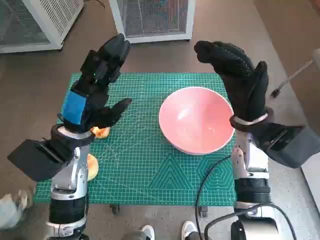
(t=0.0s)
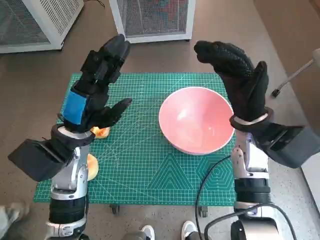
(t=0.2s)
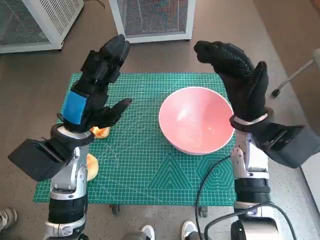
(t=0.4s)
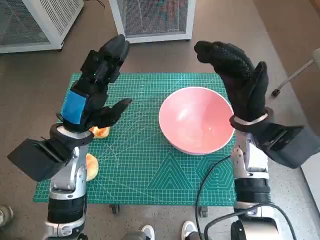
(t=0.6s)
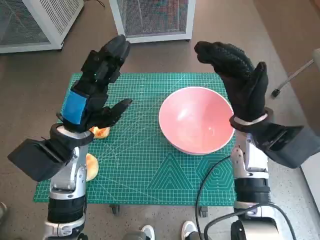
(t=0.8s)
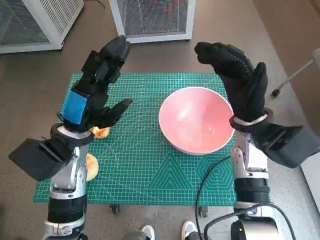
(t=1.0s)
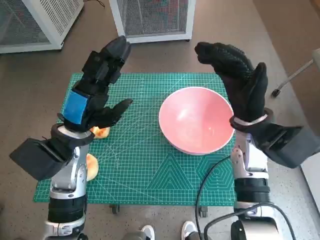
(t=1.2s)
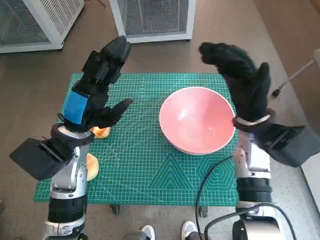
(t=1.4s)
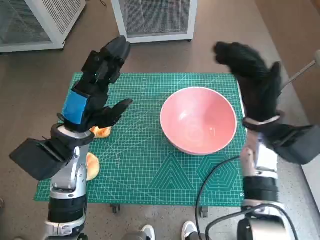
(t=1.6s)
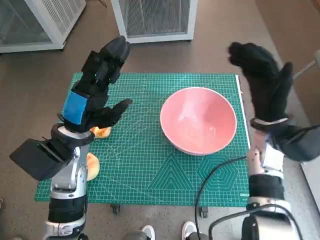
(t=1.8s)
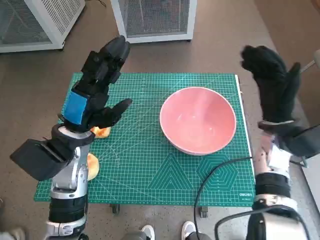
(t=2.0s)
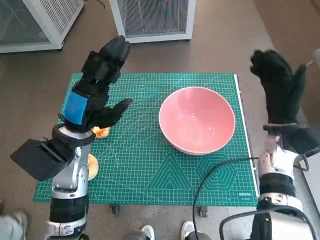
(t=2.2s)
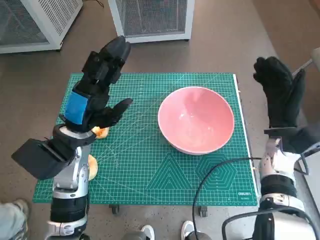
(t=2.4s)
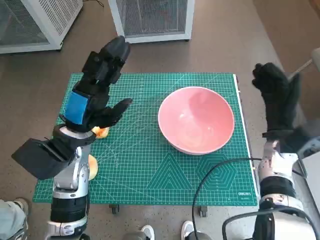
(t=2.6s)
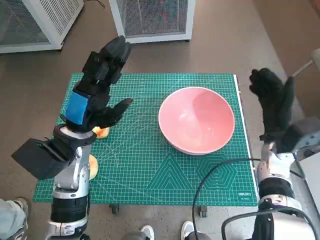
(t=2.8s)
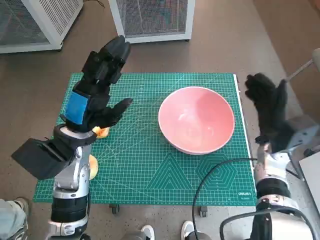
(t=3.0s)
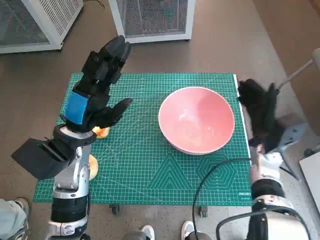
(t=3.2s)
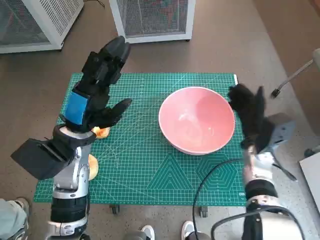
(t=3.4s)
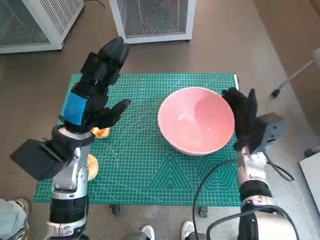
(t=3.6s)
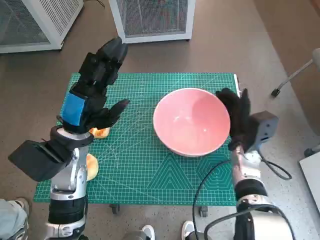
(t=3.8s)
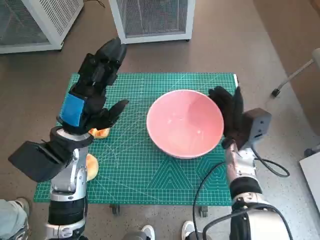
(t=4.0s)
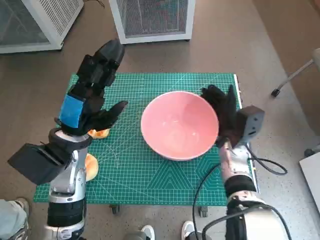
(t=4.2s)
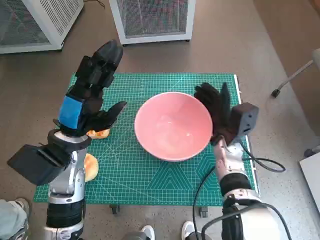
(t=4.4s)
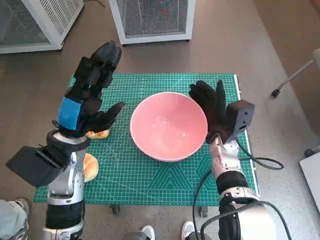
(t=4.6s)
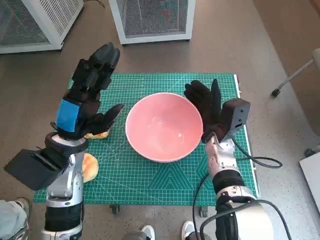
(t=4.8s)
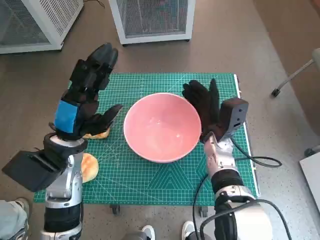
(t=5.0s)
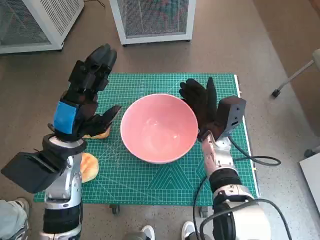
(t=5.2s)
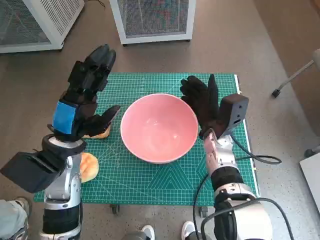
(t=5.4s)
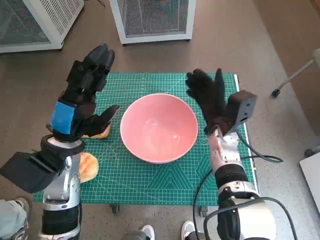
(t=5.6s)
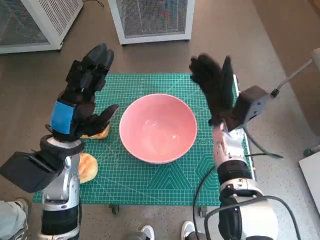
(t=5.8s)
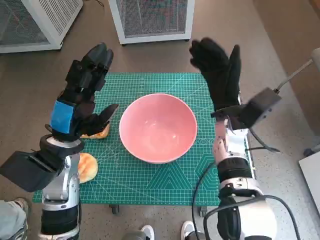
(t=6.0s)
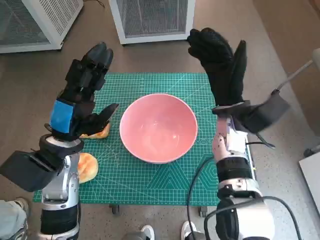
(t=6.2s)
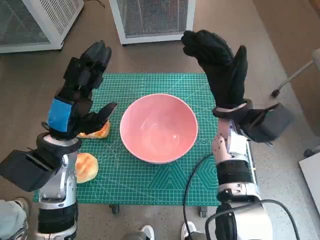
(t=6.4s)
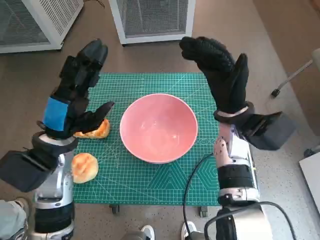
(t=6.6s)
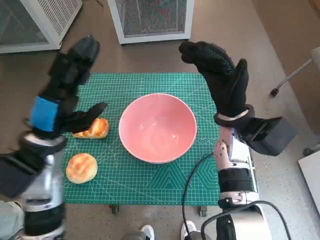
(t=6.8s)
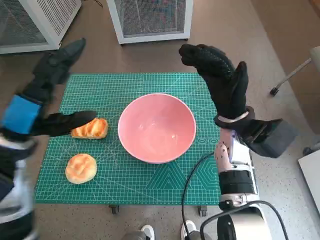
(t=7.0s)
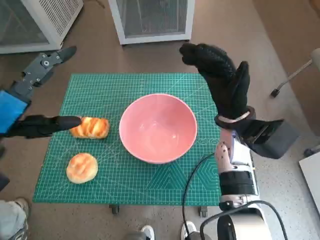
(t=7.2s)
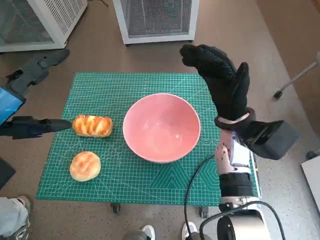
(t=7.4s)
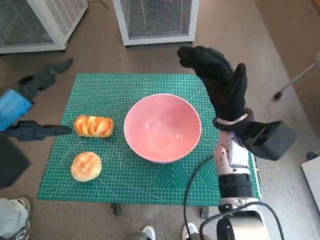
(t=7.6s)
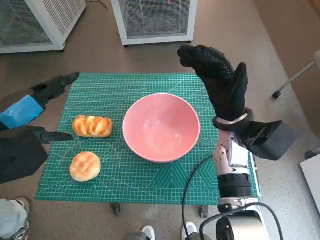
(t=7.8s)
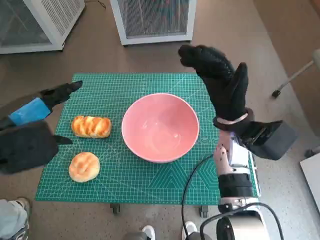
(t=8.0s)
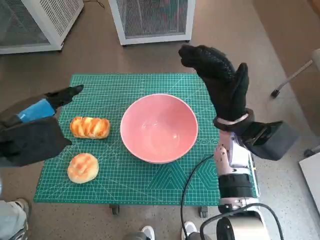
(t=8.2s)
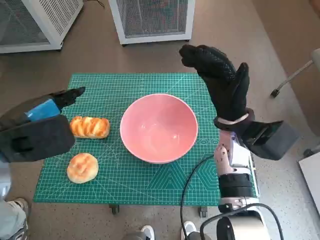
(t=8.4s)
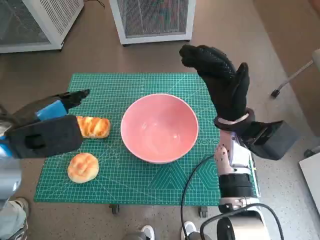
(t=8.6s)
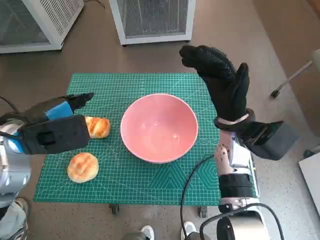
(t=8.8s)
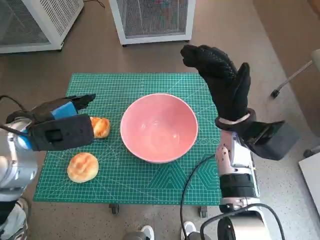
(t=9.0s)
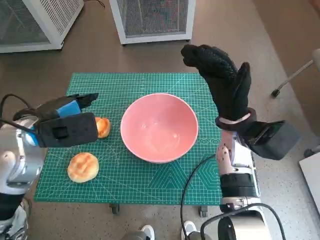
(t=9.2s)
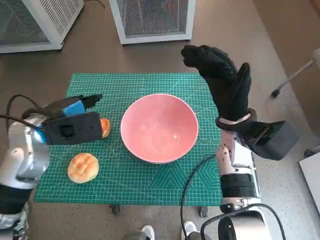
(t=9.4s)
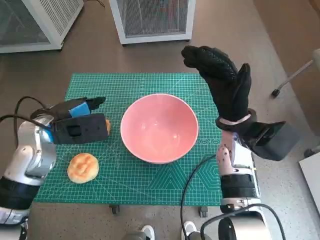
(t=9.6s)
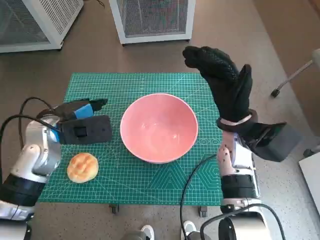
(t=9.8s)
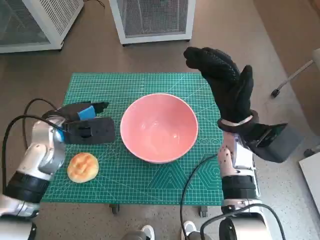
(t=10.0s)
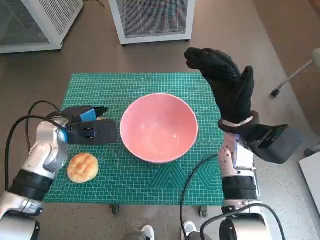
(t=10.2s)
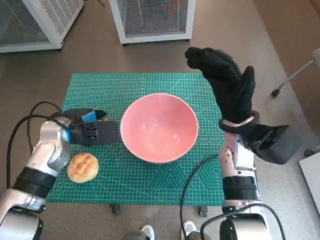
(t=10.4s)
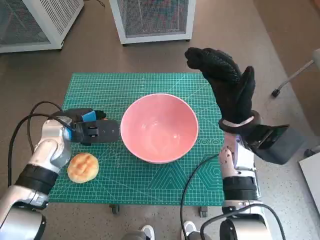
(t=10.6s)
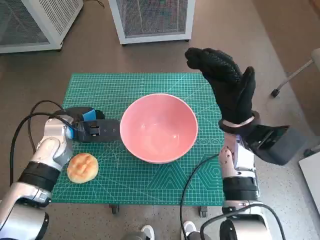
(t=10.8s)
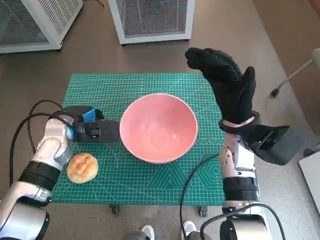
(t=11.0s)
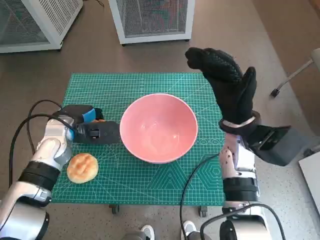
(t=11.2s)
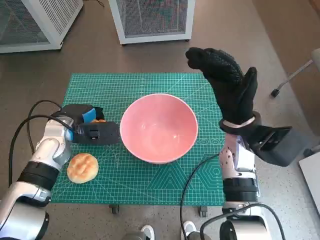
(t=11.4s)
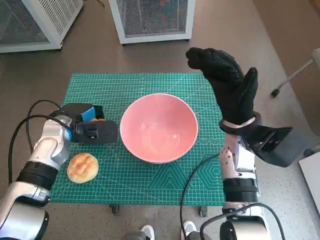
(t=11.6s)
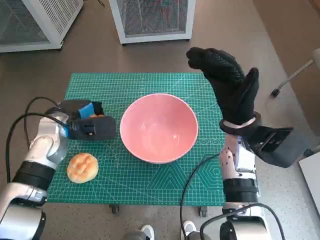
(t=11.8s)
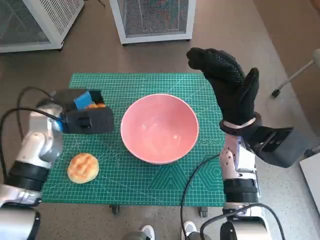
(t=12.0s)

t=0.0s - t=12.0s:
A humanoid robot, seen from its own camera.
Task of the whole recording: Push the bowl into the center of the table and put the bread into the bowl.
Step, t=0.0s - t=5.4s: Move the pink bowl to the center of table with right hand.
Step, t=5.6s - t=10.8s: Grasp the long bread with left hand.
t=1.6s - t=3.0s: The right hand travels downward and to the right by roughly 10 cm.
t=3.0s - t=4.4s: The right hand goes some 10 cm to the left.
t=4.4s - t=6.0s: The right hand heads upward, covering approximately 5 cm.
t=6.0s - t=7.6s: The left hand moves upward, to the left and backward, some 15 cm.
t=7.6s - t=9.0s: The left hand goes approximately 10 cm forward and downward.
t=9.0s - t=10.4s: The left hand goes approximately 10 cm downward and forward.
t=10.4s - t=12.0s: The hands move only a little.

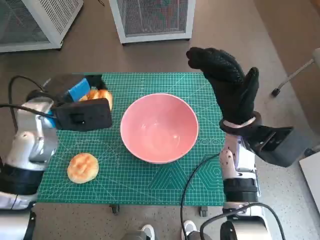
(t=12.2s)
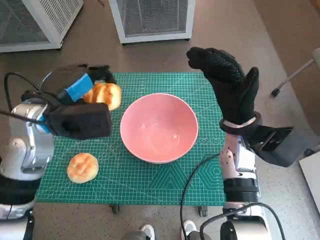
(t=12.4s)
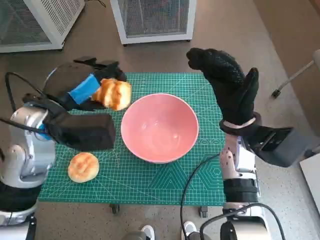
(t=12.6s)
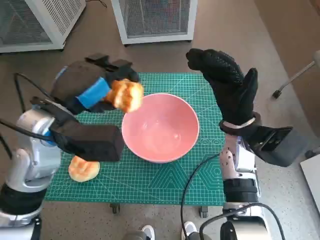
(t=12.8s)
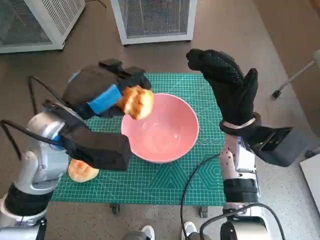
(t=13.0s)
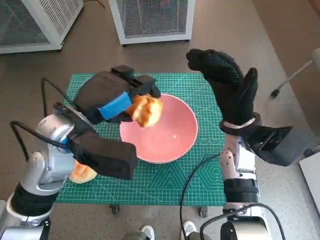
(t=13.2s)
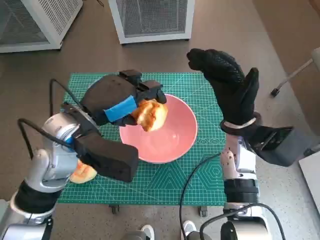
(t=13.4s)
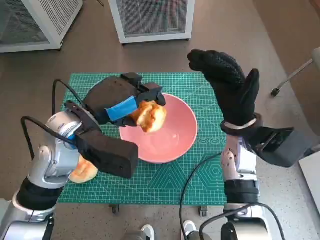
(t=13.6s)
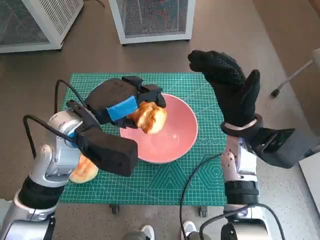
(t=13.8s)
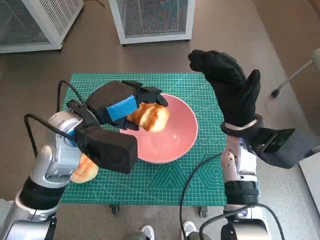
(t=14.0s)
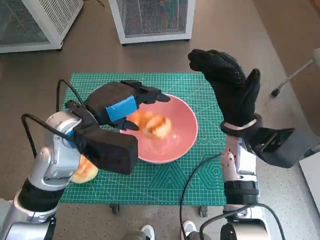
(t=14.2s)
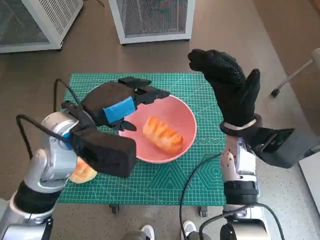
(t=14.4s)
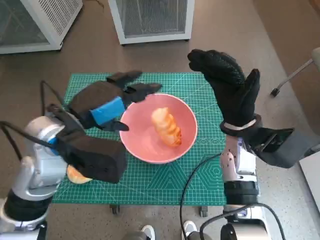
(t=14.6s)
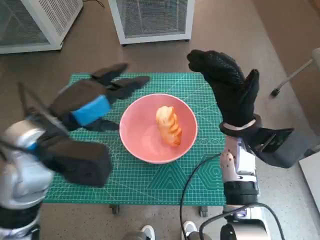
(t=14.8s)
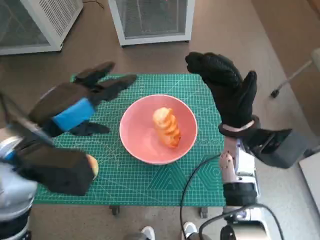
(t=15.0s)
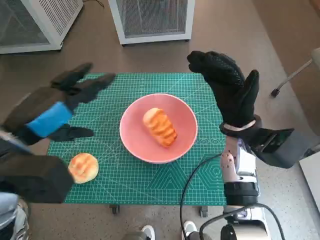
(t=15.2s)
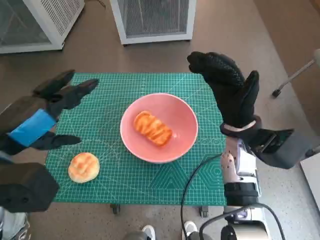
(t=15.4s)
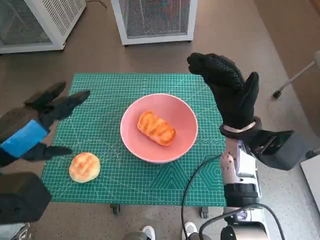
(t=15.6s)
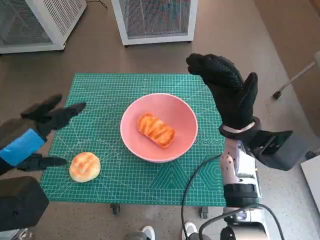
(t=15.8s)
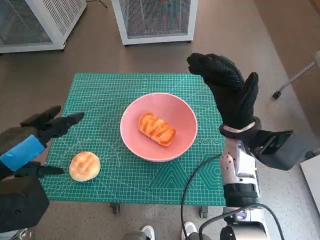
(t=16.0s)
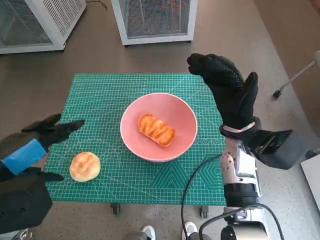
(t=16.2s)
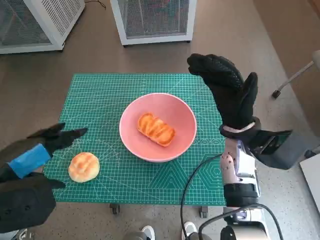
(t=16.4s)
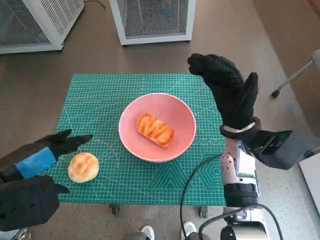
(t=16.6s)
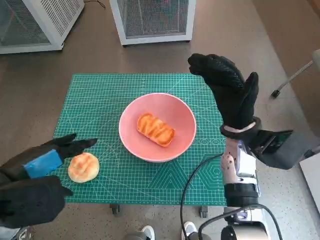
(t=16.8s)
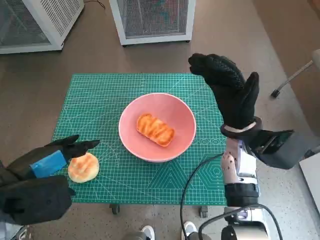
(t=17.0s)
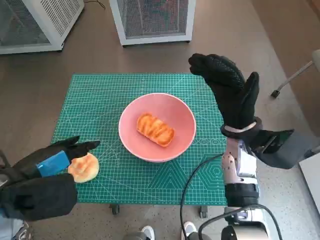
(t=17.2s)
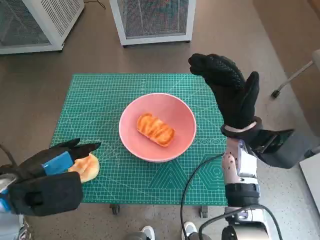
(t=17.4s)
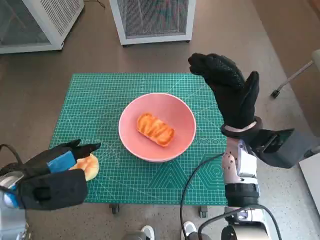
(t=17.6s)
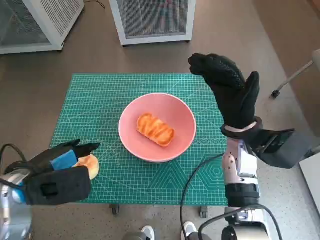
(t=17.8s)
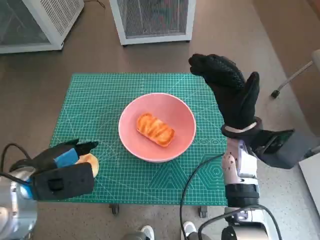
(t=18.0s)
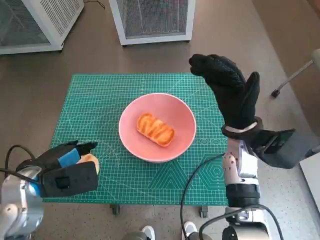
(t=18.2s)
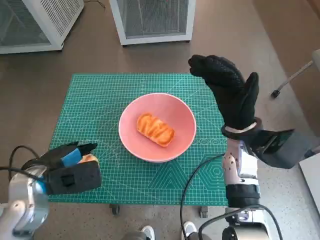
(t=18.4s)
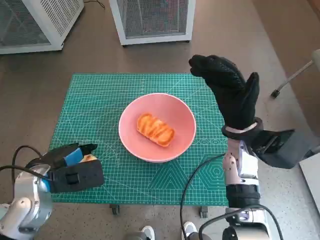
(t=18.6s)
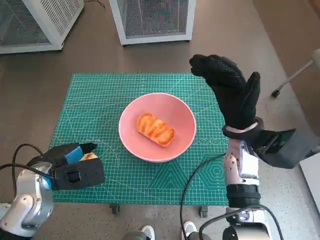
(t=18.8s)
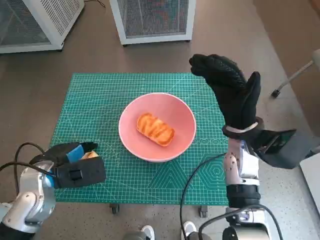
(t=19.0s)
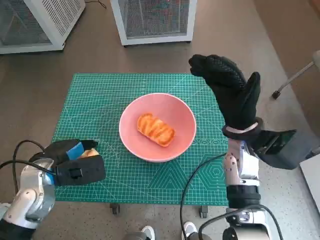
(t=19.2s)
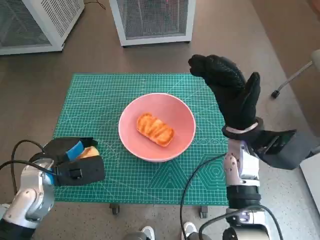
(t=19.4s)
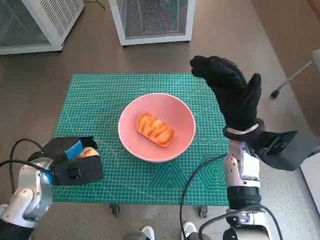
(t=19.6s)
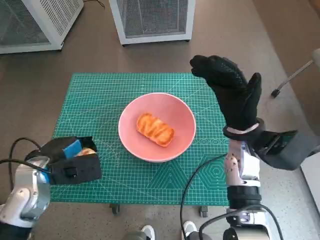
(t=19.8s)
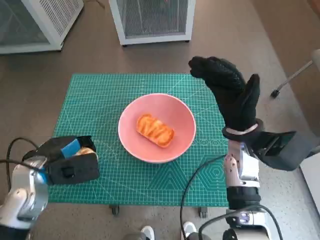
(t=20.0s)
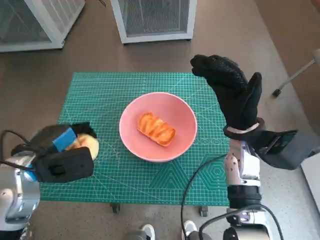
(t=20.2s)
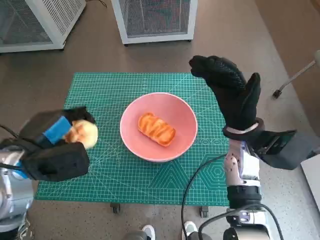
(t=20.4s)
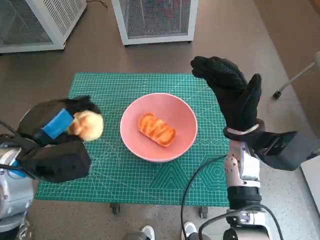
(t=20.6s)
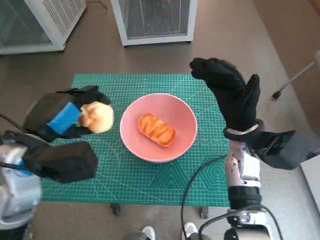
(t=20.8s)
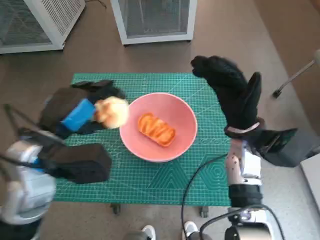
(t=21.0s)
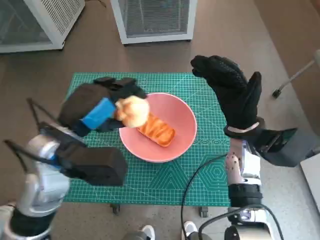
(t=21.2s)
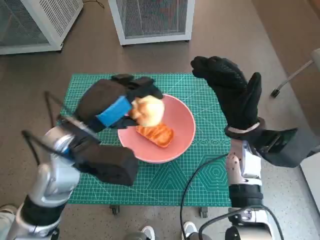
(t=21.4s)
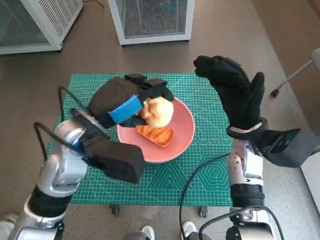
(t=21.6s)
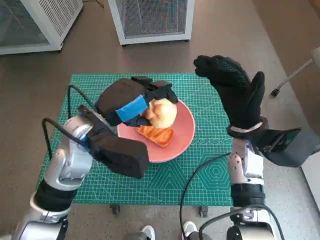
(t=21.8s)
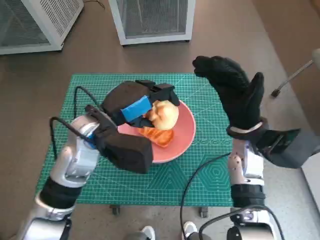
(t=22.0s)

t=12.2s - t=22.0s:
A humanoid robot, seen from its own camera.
Task of the whole recording: Push the bowl into the center of the table and put the bread into the bowl.
Step, t=12.2s - t=14.2s: Place the long bread in pink bowl with left hand.
Step, t=14.4s - t=18.8s: Grasp the round bread with left hand.
t=12.2s - t=13.6s: The left hand goes approximately 5 cm to the right.
t=13.6s - t=15.0s: The left hand moves about 5 cm.
t=15.0s - t=16.4s: The left hand is displaced backward and to the left by about 10 cm.
t=16.4s - t=17.8s: The left hand is displaced downward by some 5 cm.
t=17.8s - t=19.2s: The left hand is displaced downward by approximately 5 cm.
t=19.2s - t=20.6s: The left hand travels upward by roughly 10 cm.
t=20.6s - t=22.0s: The left hand shifts about 10 cm to the right and forward.
